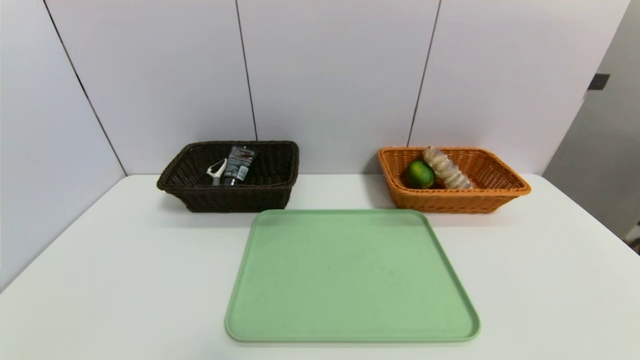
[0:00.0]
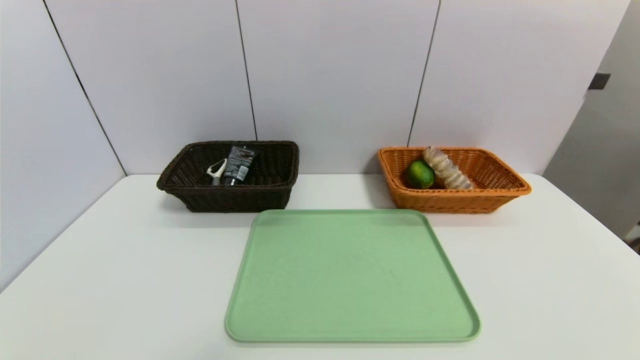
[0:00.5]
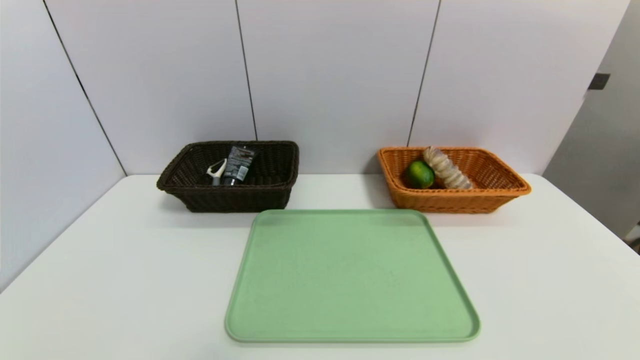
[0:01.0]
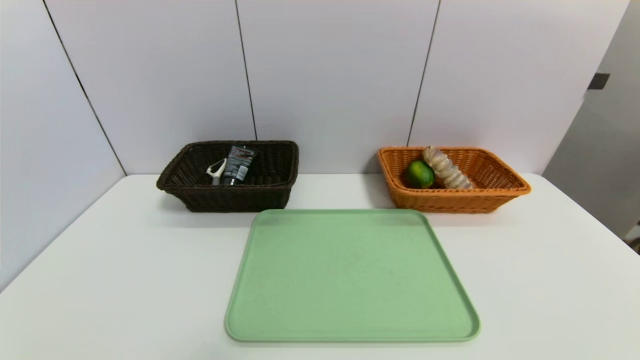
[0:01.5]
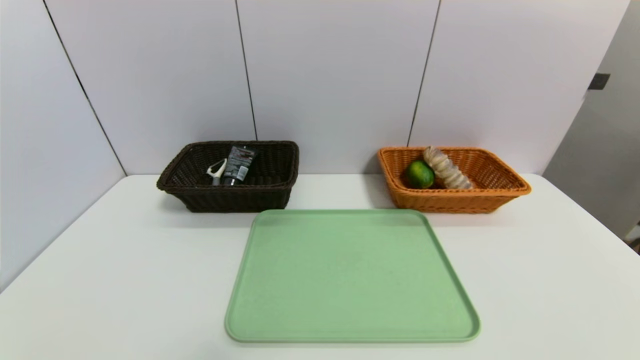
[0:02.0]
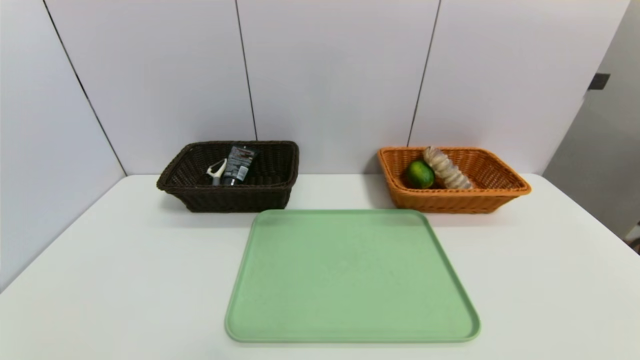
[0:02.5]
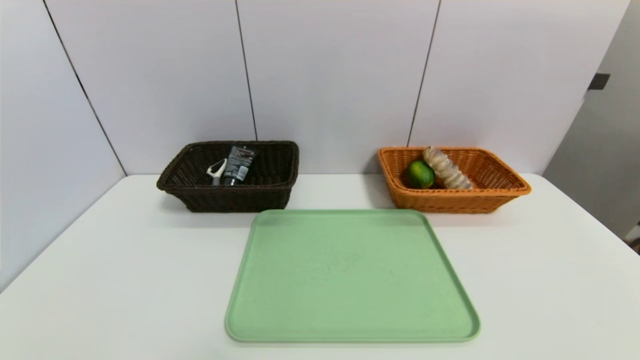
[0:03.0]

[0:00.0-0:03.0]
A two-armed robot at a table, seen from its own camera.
Task of the whole recording: place the food in the right basket with the right gripper, and place the non food items in the left basket with the left gripper.
0:01.5 to 0:03.0: The two grippers keep their place.
